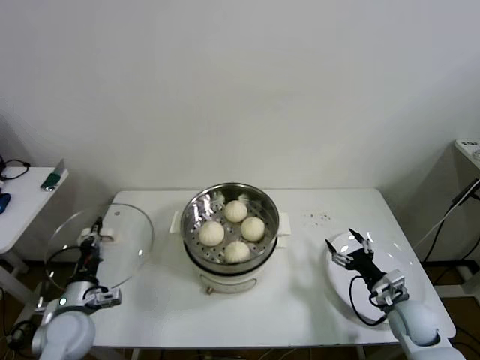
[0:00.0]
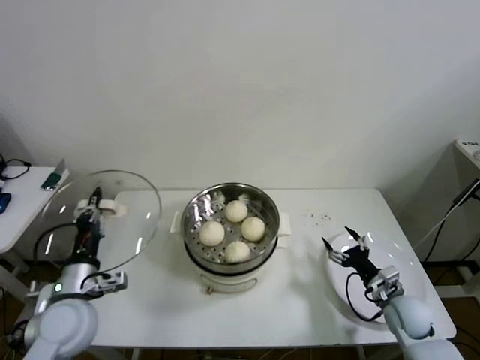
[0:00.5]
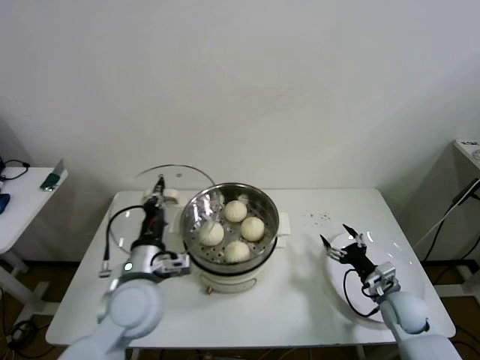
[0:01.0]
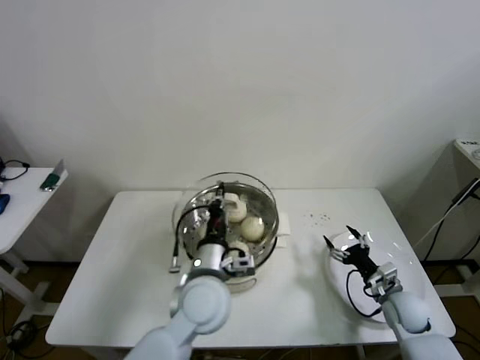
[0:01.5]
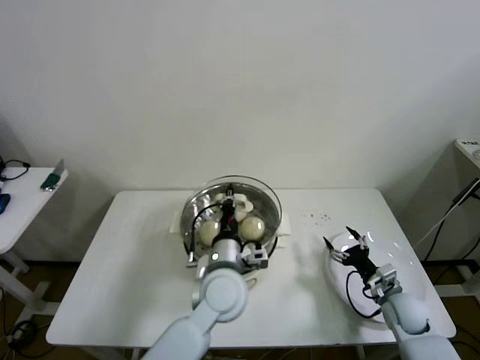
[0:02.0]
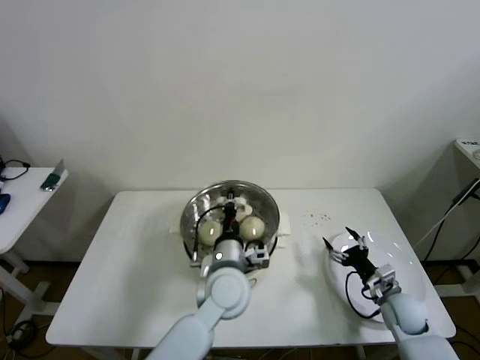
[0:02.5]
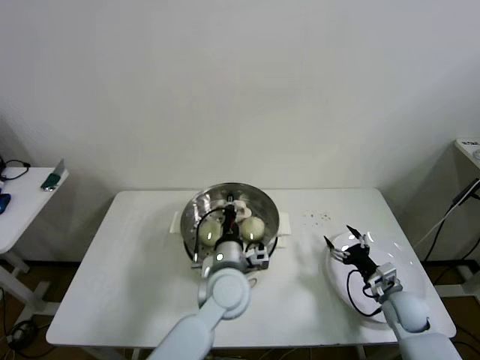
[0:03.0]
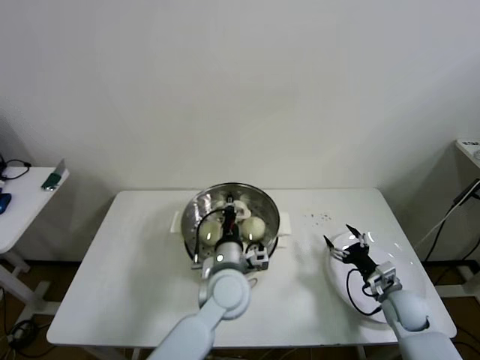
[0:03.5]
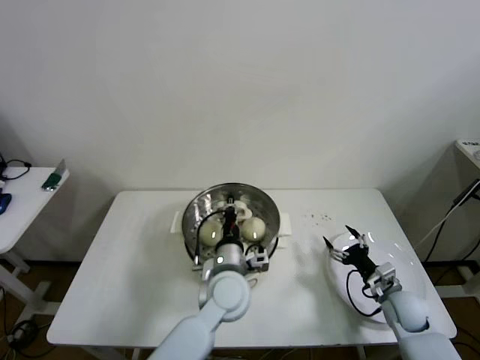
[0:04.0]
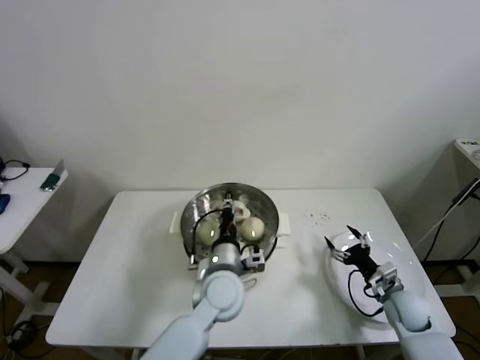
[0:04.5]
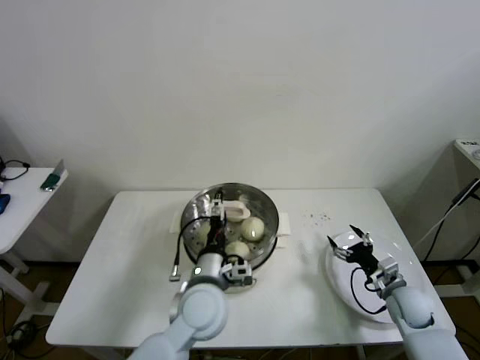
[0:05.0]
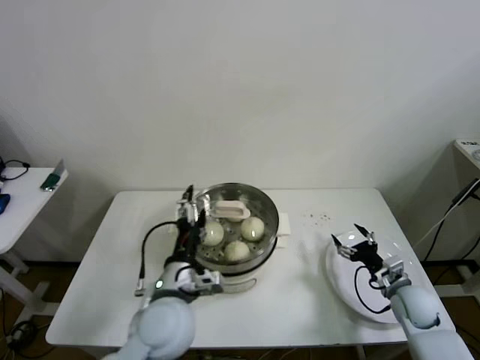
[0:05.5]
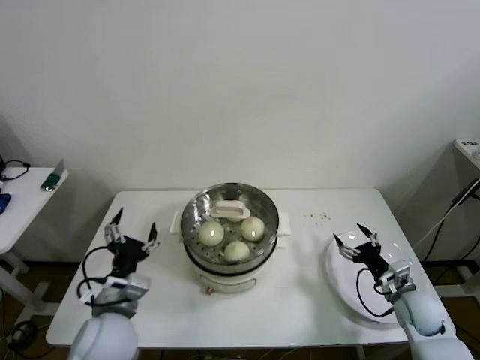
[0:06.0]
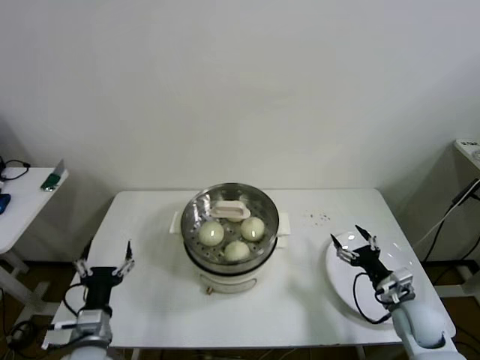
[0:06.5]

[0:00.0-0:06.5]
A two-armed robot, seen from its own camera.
Step, 0:00.0 to 0:05.0: Place the pot lid on the steamer with left gripper.
0:00.0 to 0:02.0: The left gripper travels to the right by approximately 35 cm.
0:02.0 to 0:04.5: The grippers make only small movements.
0:04.5 to 0:06.5: The left gripper moves to the left and backward, about 30 cm, and opens.

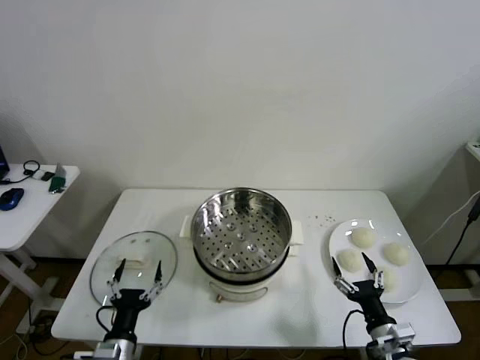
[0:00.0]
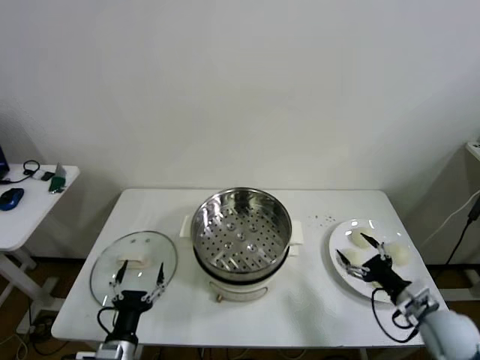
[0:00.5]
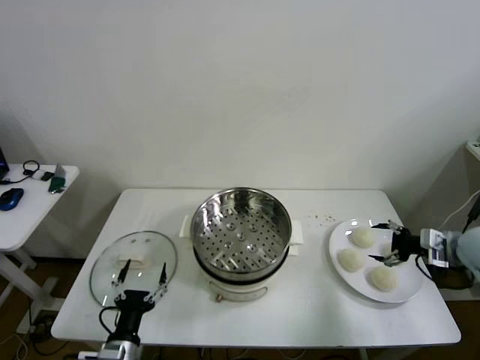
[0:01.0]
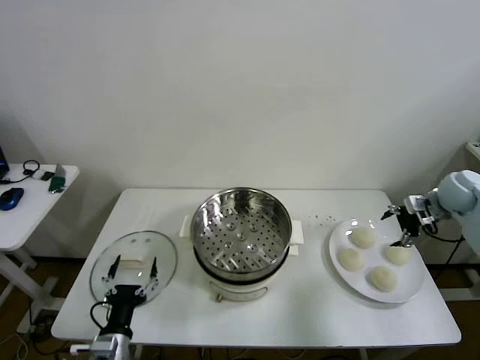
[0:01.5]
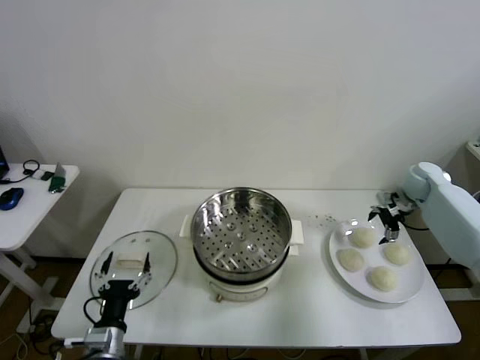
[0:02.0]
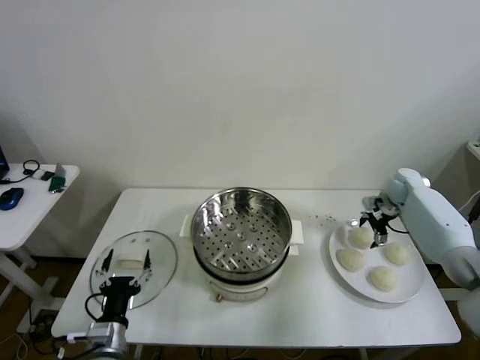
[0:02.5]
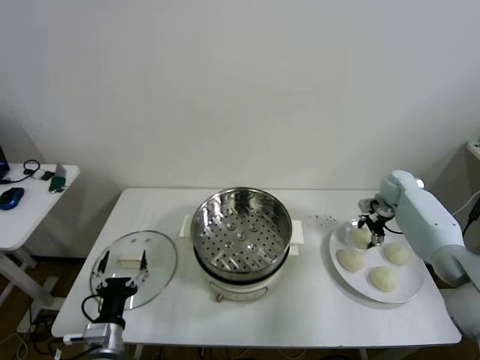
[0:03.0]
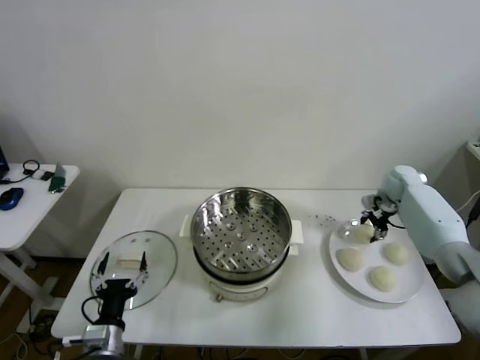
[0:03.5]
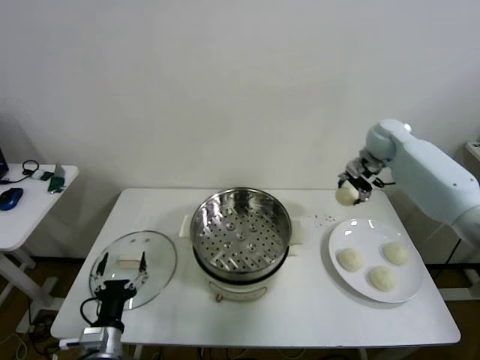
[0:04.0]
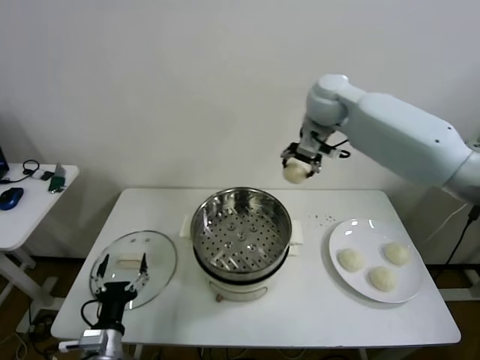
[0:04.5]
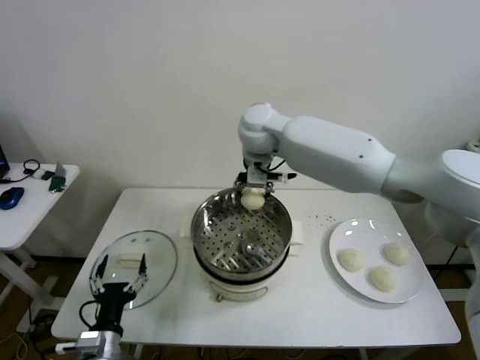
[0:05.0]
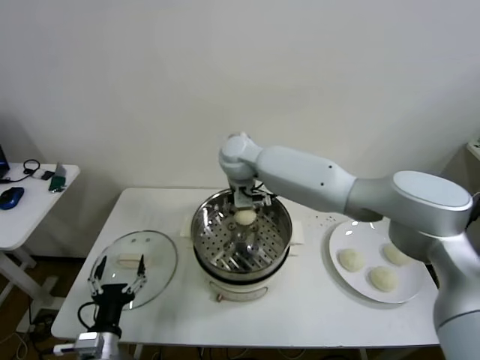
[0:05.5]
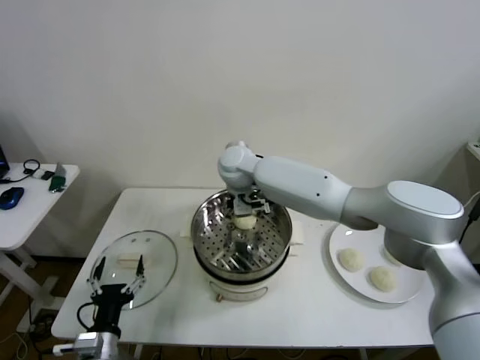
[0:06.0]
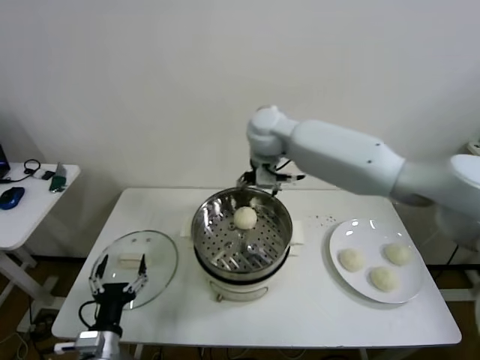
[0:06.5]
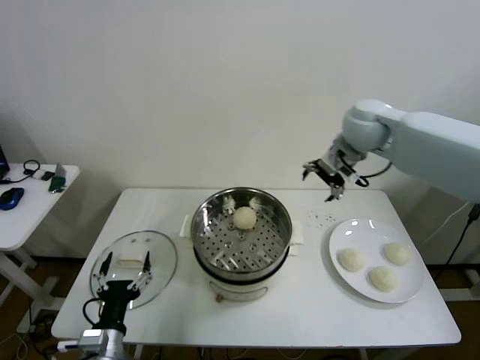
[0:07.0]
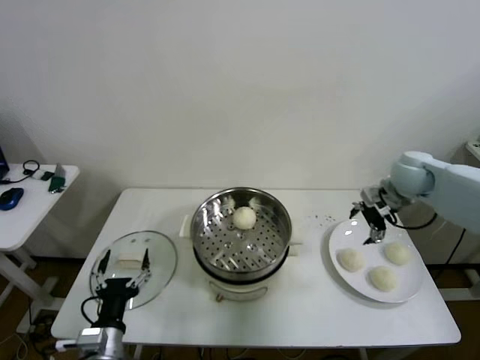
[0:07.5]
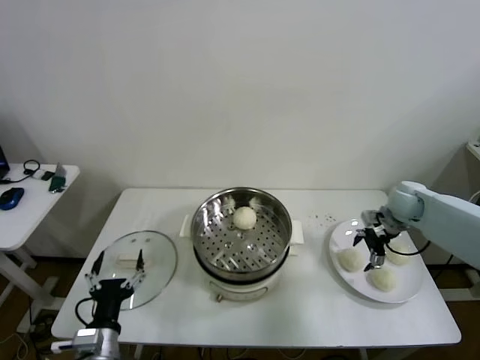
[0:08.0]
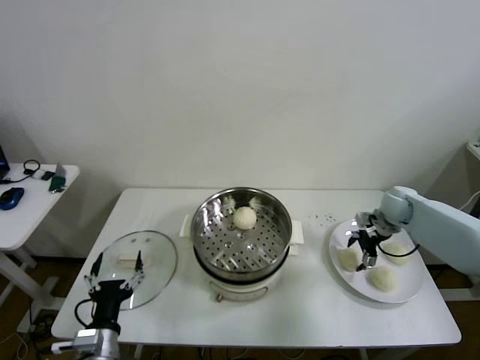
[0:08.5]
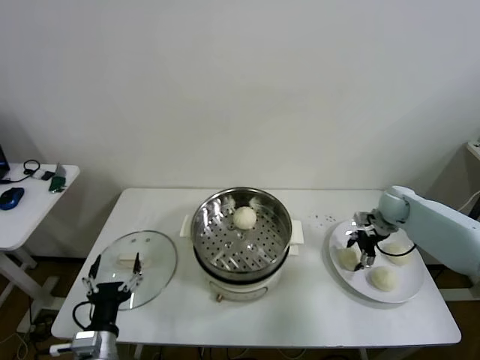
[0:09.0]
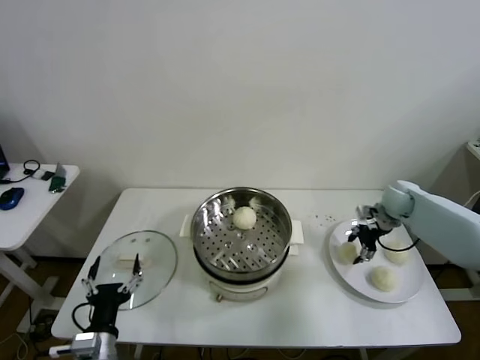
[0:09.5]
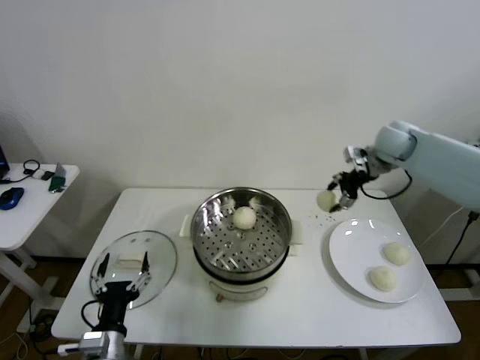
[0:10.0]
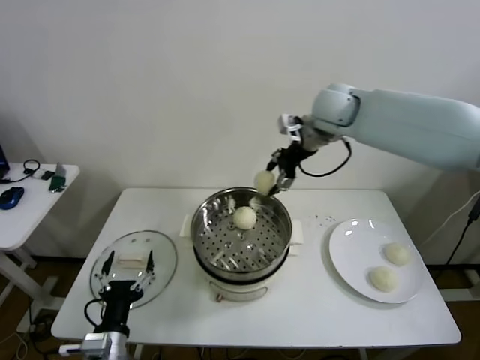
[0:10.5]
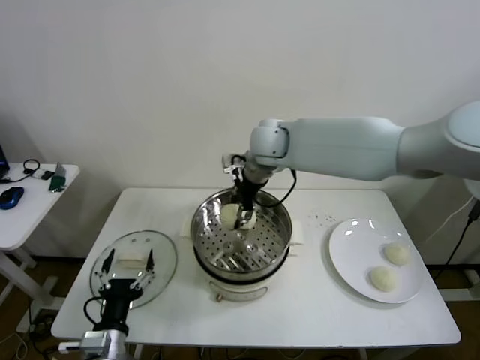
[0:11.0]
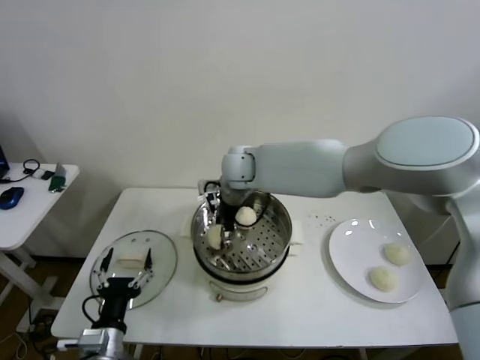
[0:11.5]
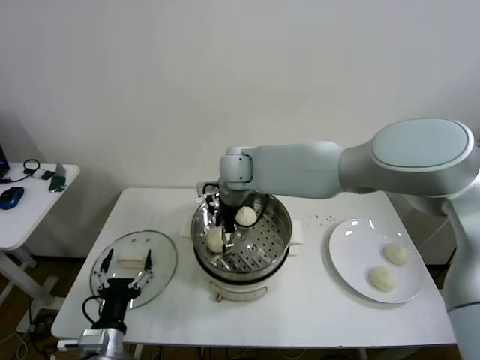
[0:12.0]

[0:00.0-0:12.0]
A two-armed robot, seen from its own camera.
Step, 0:00.0 to 0:03.0: Grasp the baozi in the plate with right gripper.
Step, 0:03.5 to 0:06.0: Place the baozi on the steamer with right gripper.
Step, 0:06.5 to 0:09.0: Grasp the baozi in the plate with right gripper.
0:02.0 to 0:04.0: The right gripper travels upward and to the left by some 20 cm, and closes.
0:04.0 to 0:06.0: The right gripper goes about 35 cm to the left, and opens up.
0:06.0 to 0:08.0: The right gripper travels to the right by some 40 cm.
0:08.0 to 0:10.0: The right gripper moves upward and to the left, about 20 cm, and closes up.
0:10.0 to 0:12.0: The right gripper travels to the left by some 35 cm, and opens up.

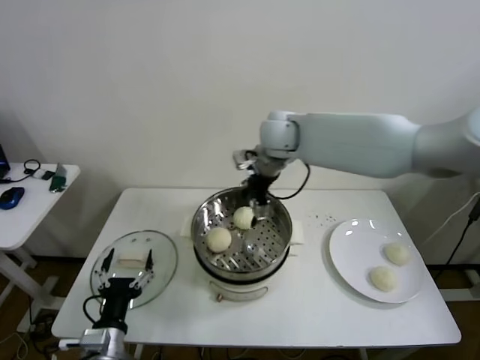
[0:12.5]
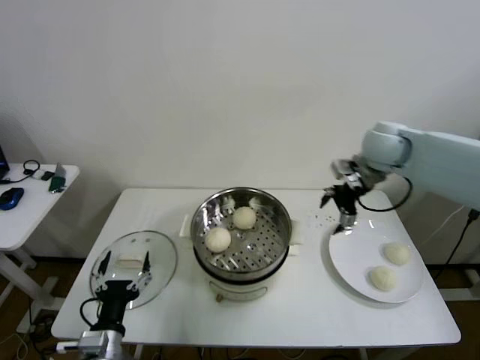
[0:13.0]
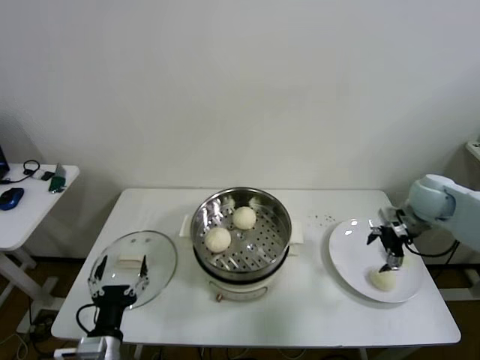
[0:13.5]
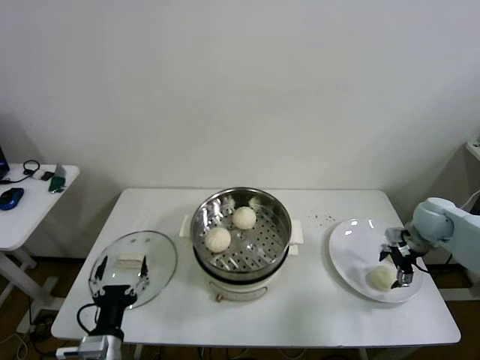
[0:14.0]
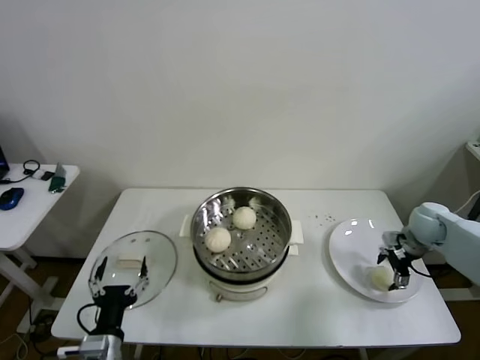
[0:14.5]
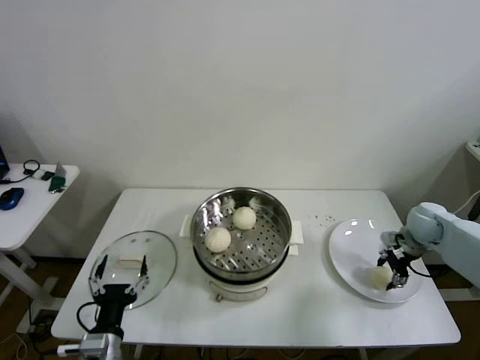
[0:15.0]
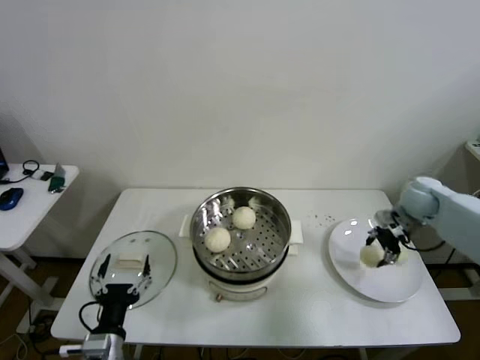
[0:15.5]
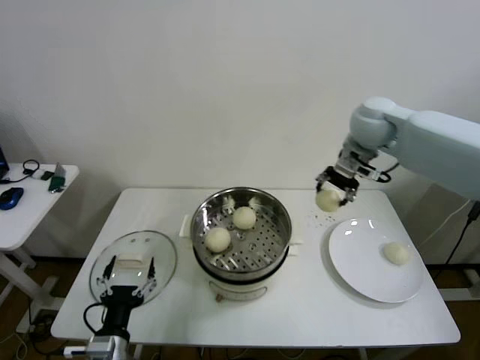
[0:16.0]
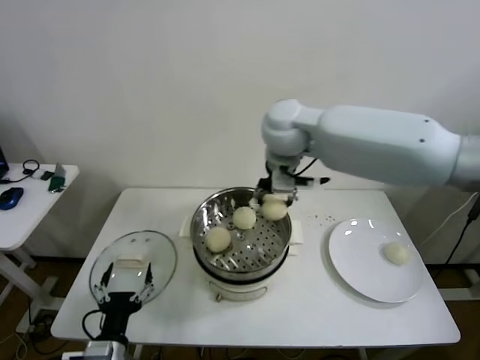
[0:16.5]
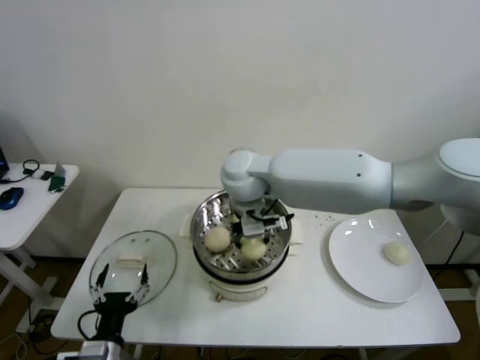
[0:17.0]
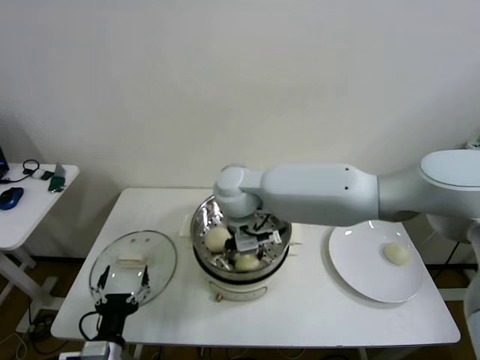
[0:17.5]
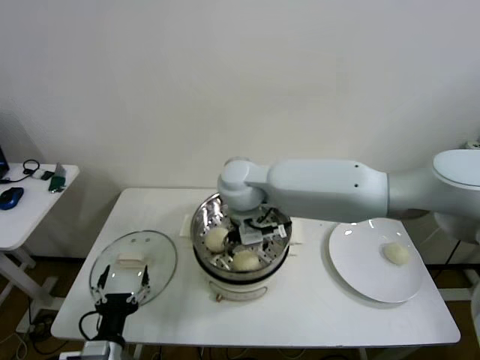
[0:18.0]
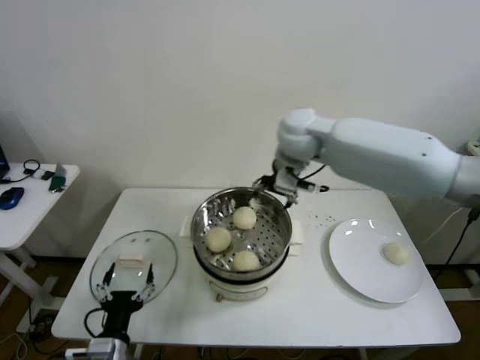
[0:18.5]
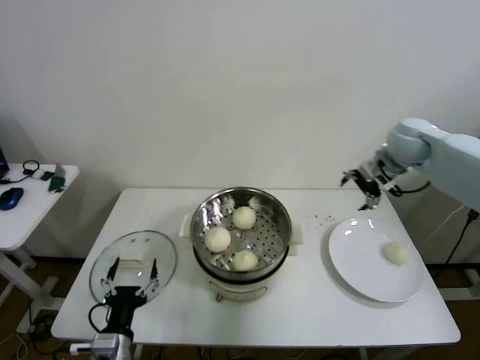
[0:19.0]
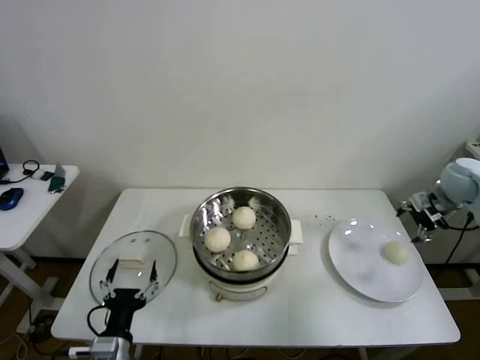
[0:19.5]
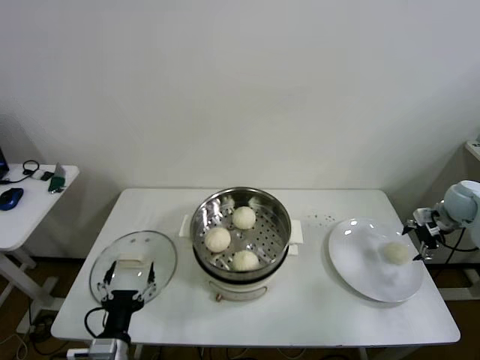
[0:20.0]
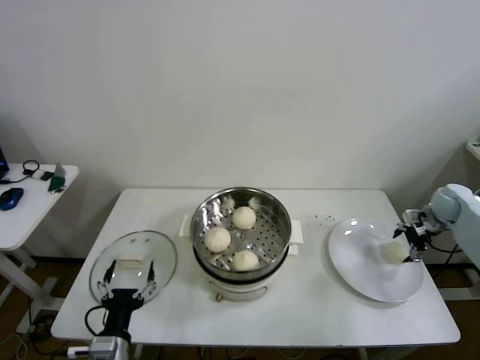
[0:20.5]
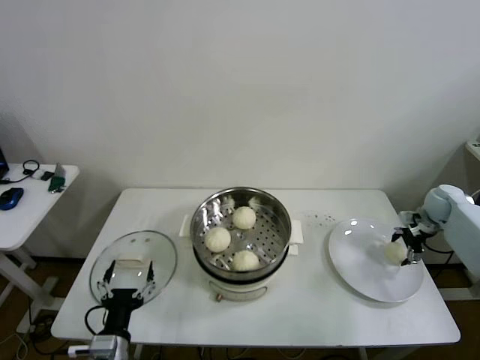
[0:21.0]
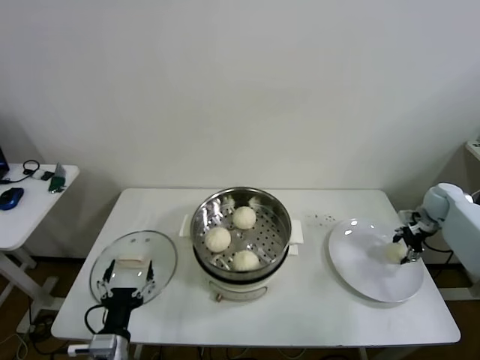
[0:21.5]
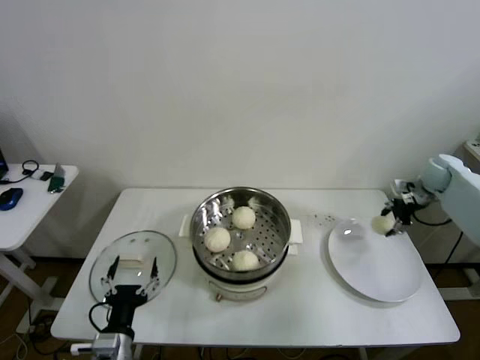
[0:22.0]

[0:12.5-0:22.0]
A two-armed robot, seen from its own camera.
Step, 0:12.5 to 0:14.5: Grasp the baozi in the plate with right gripper.
Step, 0:15.0 to 0:17.5: Place the baozi on the steamer with right gripper.
Step, 0:18.0 to 0:21.0: Grasp the baozi in the plate with right gripper.
0:12.5 to 0:14.5: The right gripper travels to the right and downward by some 40 cm.
0:14.5 to 0:16.5: The right gripper is displaced to the left and upward by some 50 cm, and closes its fingers.
0:16.5 to 0:18.0: The right gripper shifts some 10 cm downward and to the left, and opens up.
0:18.0 to 0:20.0: The right gripper shifts about 50 cm to the right.
0:20.0 to 0:22.0: The right gripper moves forward, some 5 cm, and closes.
